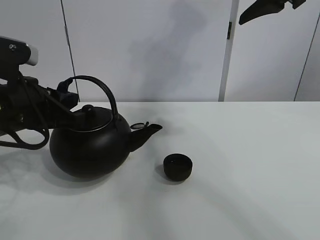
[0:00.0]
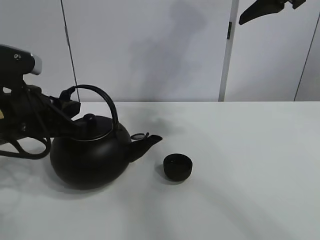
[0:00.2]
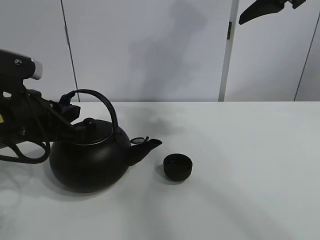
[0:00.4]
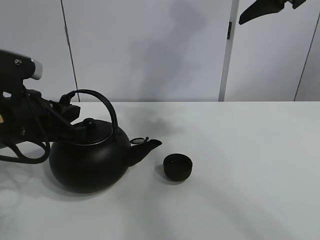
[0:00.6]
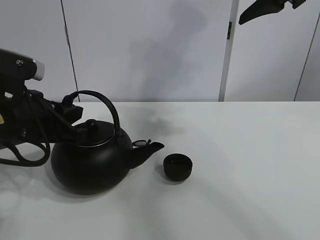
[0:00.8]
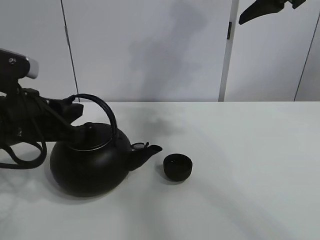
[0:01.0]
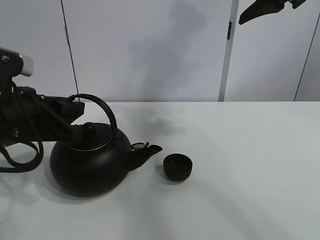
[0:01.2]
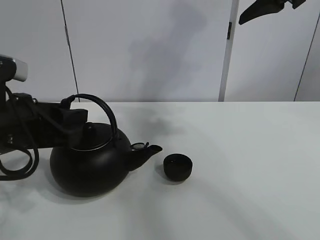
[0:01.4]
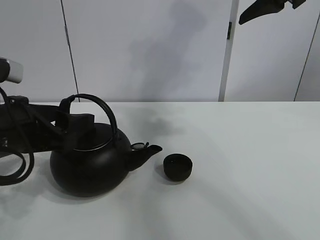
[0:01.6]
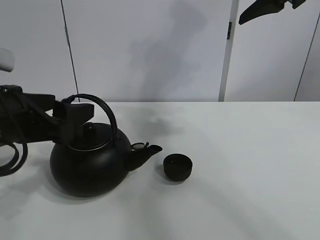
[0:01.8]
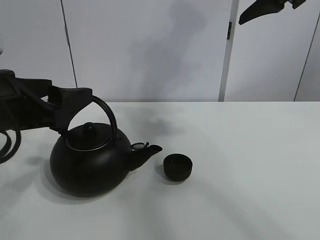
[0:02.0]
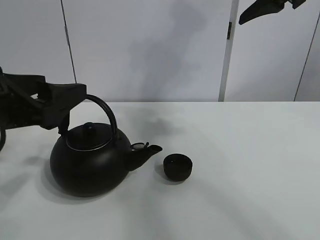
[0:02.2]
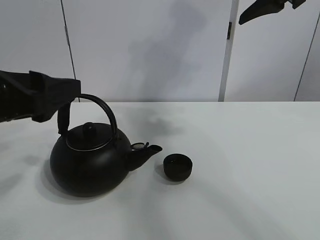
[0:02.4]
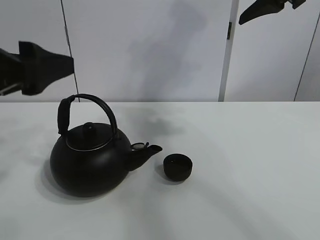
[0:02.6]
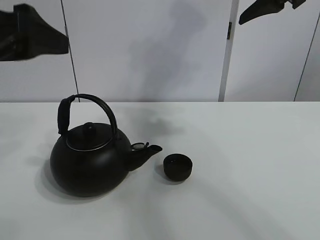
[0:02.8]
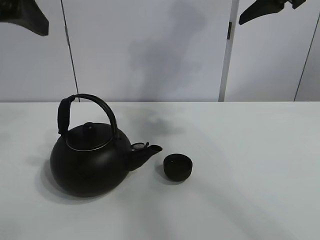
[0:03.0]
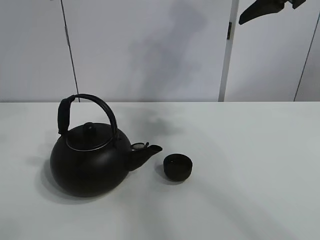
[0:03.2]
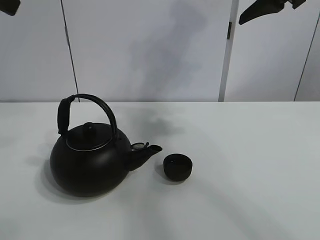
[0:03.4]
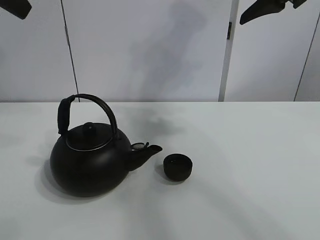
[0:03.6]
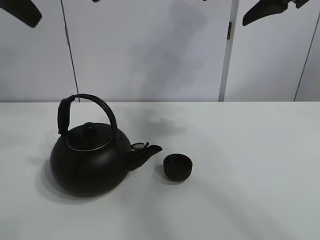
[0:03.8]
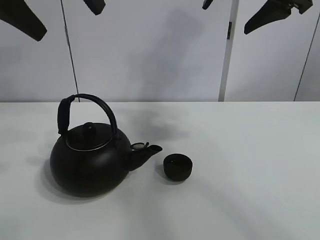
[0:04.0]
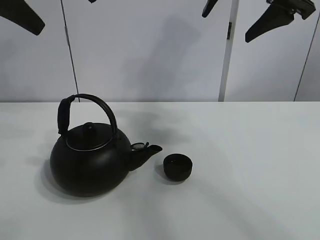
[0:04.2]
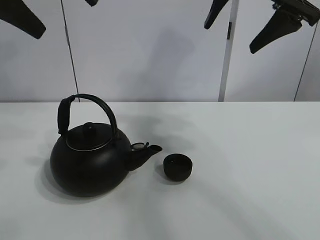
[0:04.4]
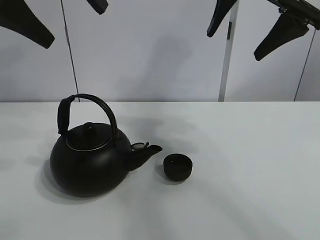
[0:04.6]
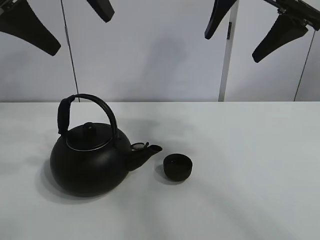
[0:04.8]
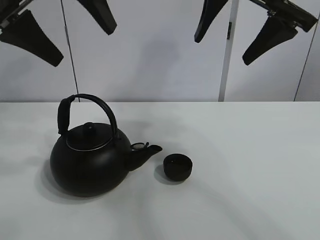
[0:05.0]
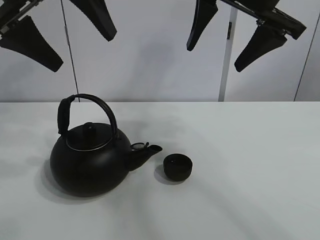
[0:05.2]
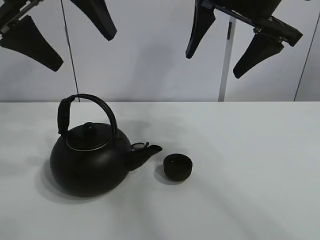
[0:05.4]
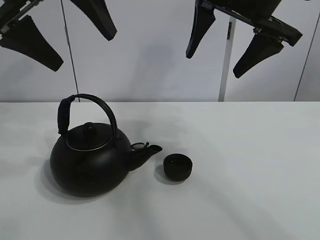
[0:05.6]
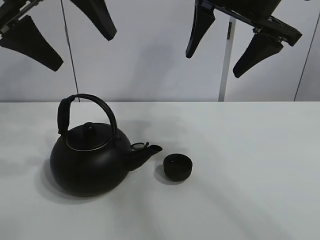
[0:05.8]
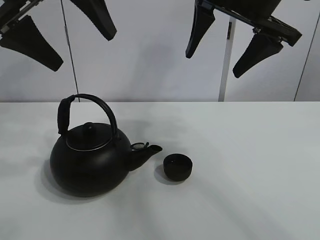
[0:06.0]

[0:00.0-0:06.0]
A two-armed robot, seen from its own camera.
Task of the whole recording: pour tea into the teacup.
0:00.0 to 0:01.6: The left gripper opens.
0:01.6 to 0:03.0: The left gripper is displaced upward by about 20 cm.
0:03.0 to 0:04.4: The left gripper travels forward and upward by approximately 10 cm.
0:04.4 to 0:06.0: There are only small adjustments of the grippers.

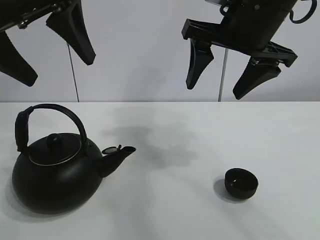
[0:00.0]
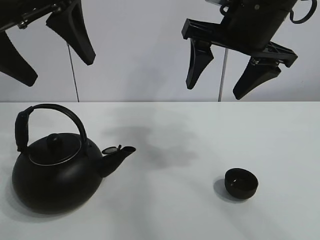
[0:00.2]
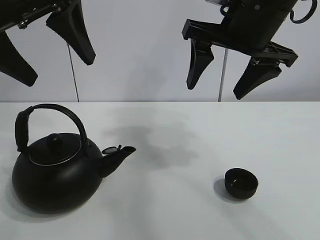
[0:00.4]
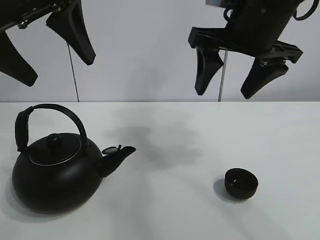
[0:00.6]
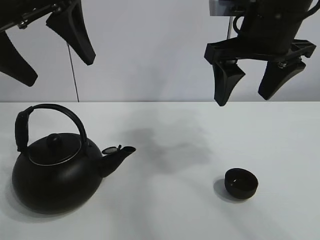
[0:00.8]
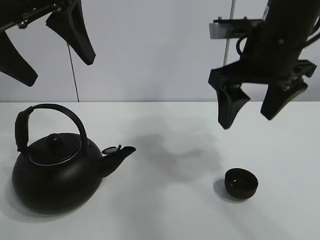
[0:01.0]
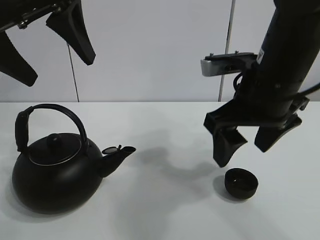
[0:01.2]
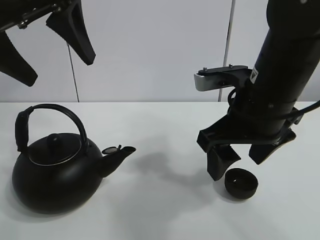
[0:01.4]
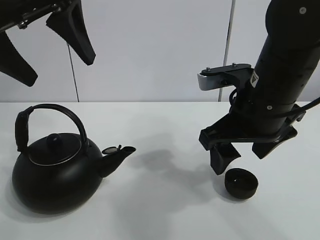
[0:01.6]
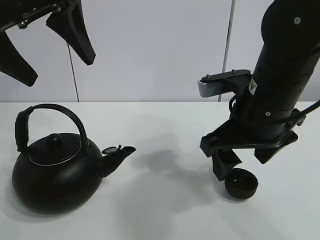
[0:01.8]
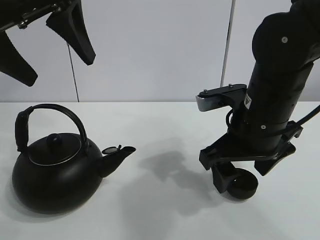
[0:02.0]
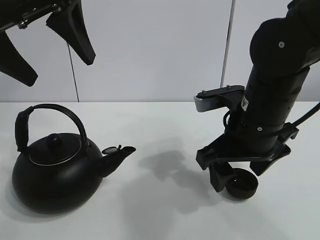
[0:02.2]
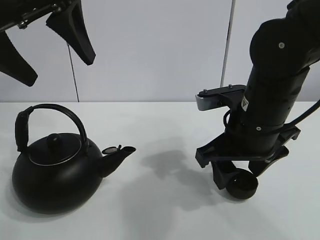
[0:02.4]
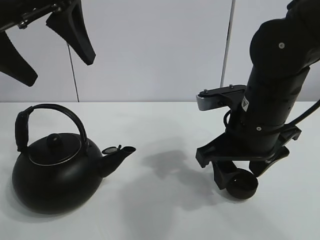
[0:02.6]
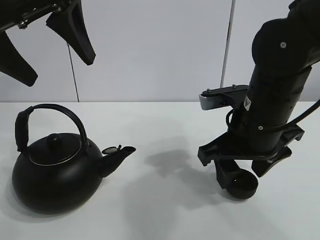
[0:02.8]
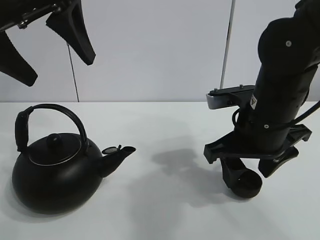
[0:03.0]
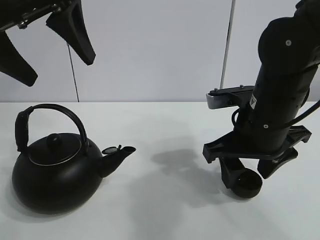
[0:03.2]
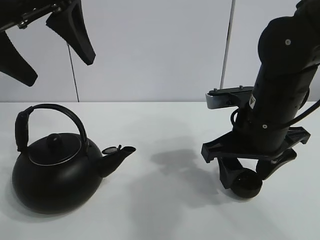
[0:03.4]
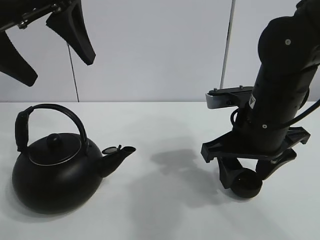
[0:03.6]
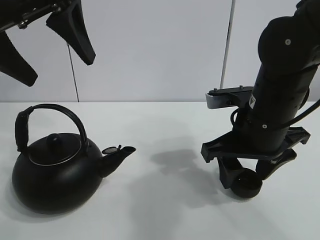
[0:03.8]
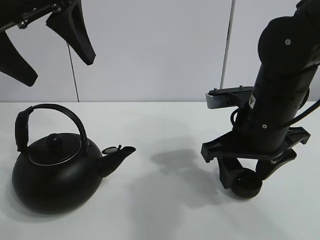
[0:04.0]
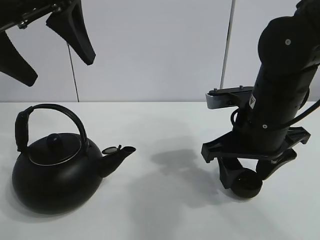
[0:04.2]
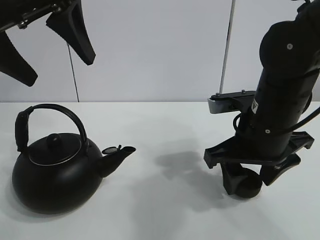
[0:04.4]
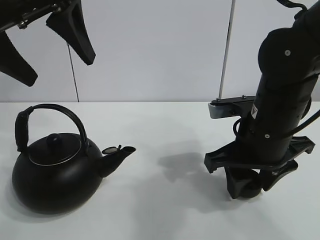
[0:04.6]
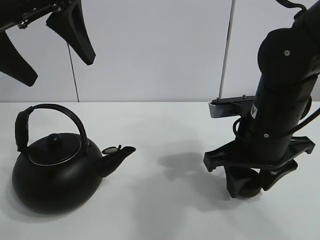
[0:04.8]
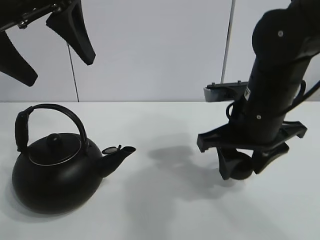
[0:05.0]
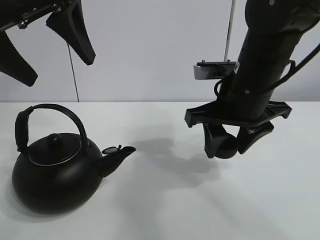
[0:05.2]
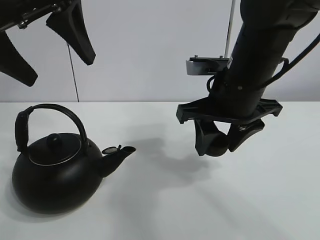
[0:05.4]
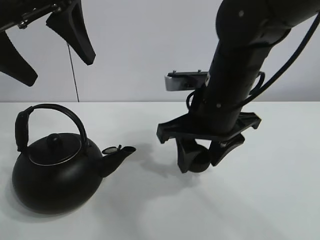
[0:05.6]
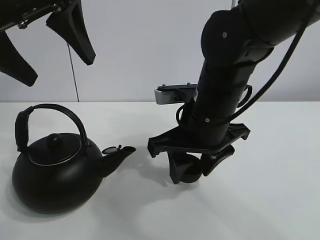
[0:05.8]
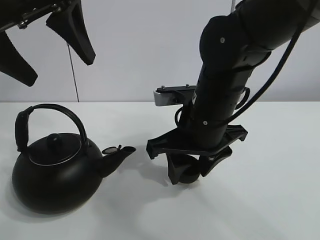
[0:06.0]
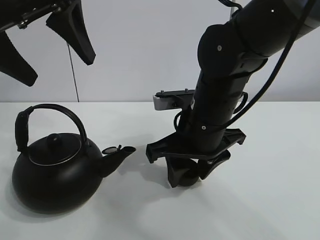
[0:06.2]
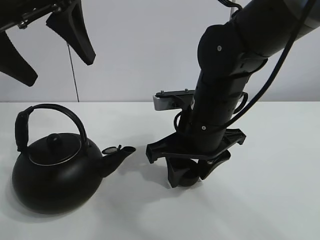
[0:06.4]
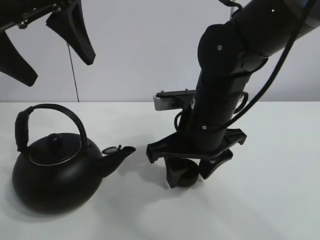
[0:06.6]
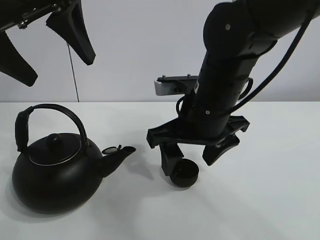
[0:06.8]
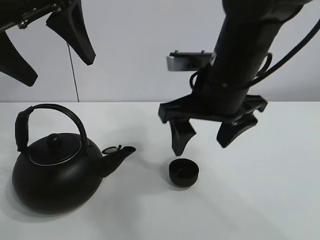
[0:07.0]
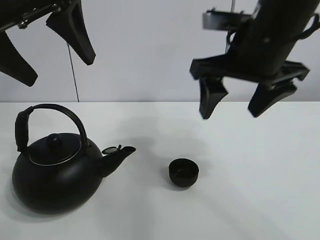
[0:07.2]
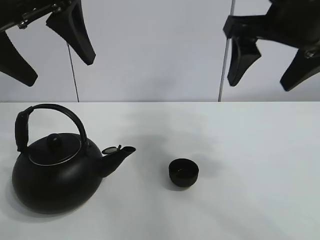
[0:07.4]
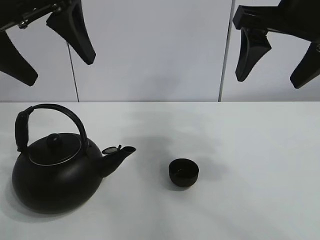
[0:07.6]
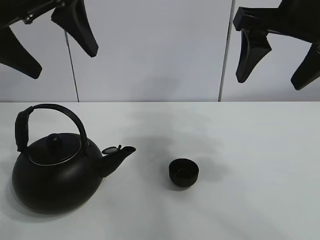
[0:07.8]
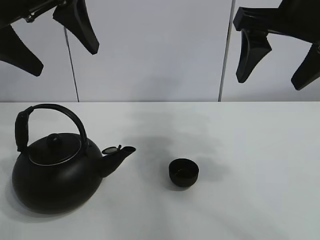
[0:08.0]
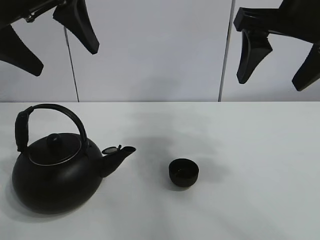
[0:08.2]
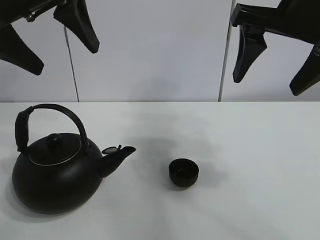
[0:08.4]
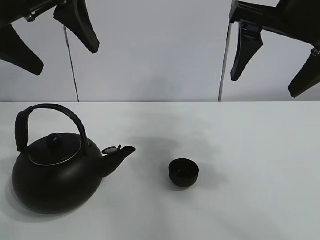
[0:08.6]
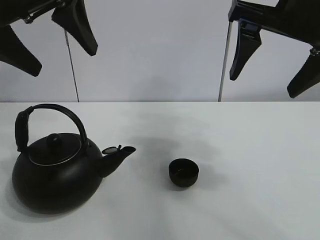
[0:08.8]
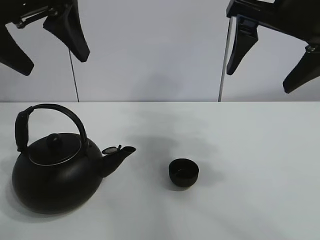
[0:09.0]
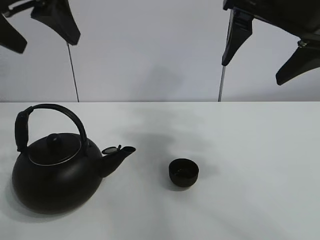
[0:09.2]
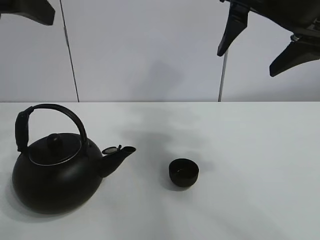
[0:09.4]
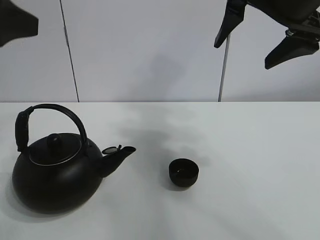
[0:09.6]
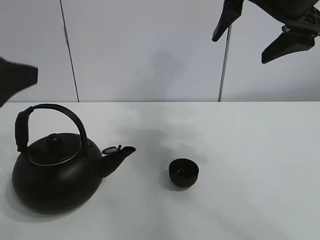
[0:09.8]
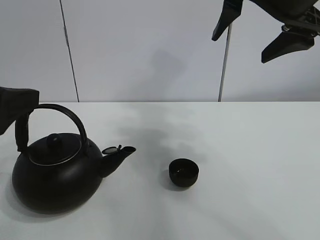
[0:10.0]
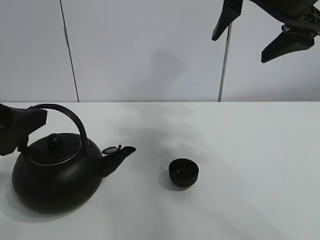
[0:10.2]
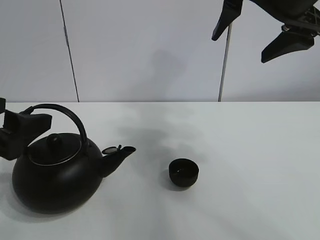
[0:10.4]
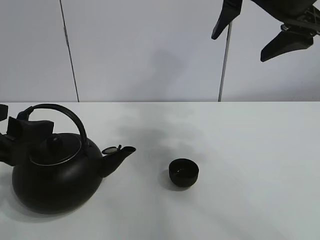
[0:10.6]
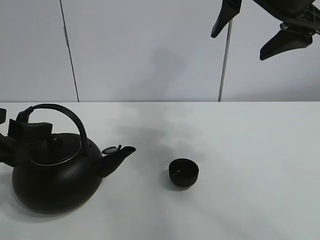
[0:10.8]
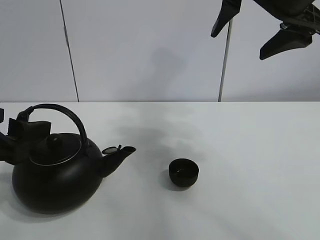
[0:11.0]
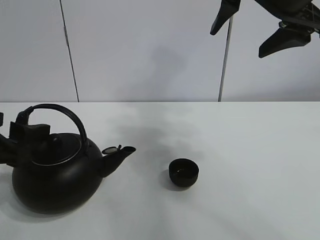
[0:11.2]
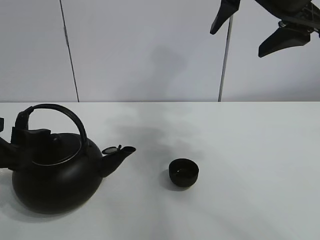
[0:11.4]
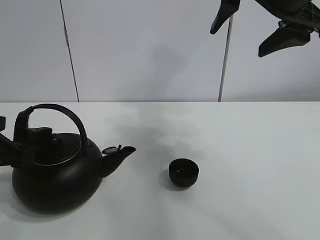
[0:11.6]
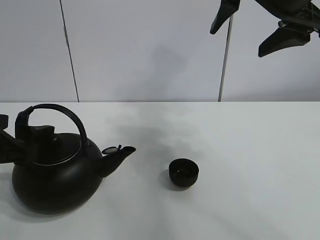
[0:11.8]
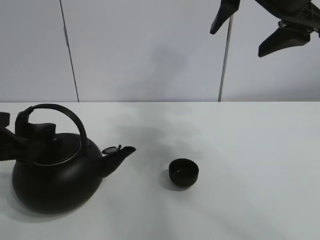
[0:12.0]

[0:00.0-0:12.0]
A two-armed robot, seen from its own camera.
Task of the whole recording: pour tea into the teacup.
Step, 0:00.0 to 0:04.6: Pick up the teacup with the right gripper.
Step, 0:04.8 to 0:06.6: Place the teacup in the center of view with the right gripper.
0:01.6 to 0:03.0: The right gripper closes up.
0:03.0 to 0:04.4: Both grippers stay put.
0:04.4 to 0:06.0: The right gripper heads to the left, covering approximately 10 cm, and closes.
0:06.0 to 0:07.6: The right gripper is displaced upward and to the right by some 20 cm, and opens.
0:07.6 to 0:09.0: The grippers stay close to where they were, moving slightly.
0:09.0 to 0:10.4: The left gripper shifts roughly 15 cm downward and backward.
0:10.4 to 0:12.0: The grippers move only a little.

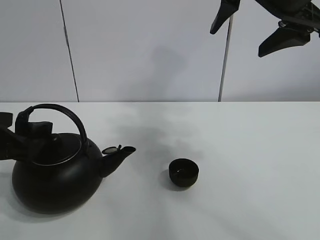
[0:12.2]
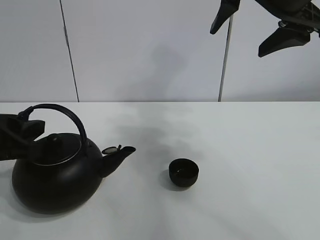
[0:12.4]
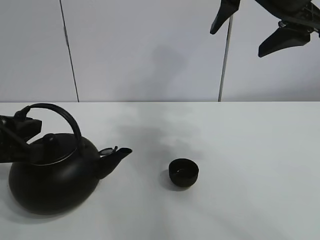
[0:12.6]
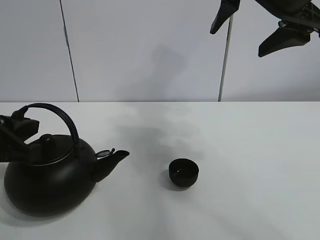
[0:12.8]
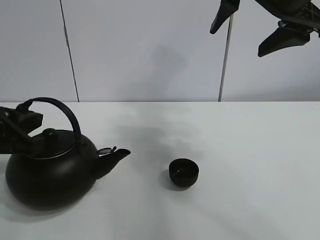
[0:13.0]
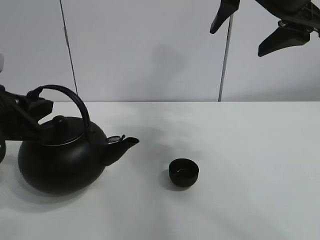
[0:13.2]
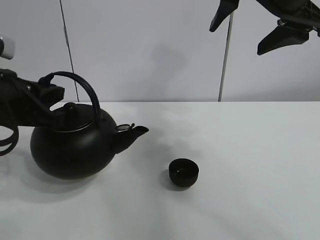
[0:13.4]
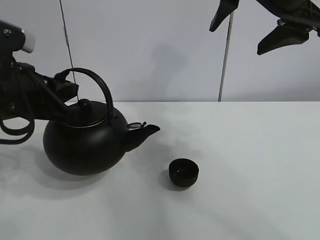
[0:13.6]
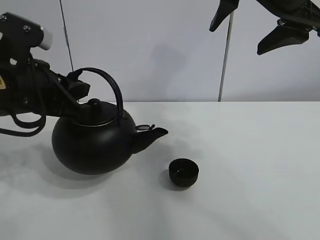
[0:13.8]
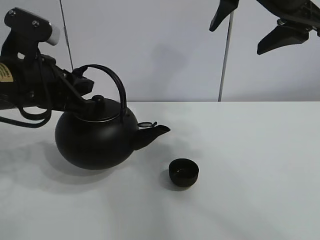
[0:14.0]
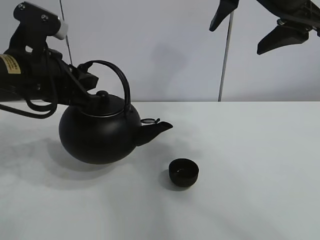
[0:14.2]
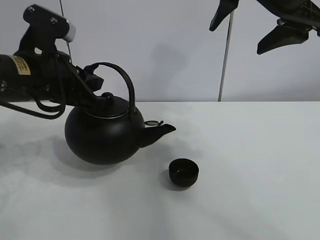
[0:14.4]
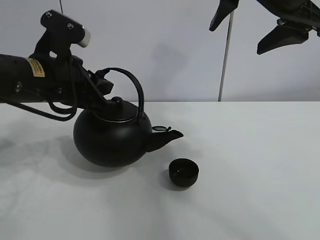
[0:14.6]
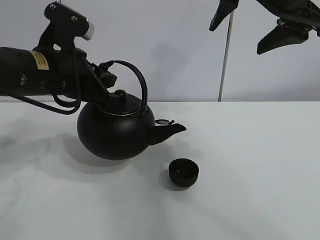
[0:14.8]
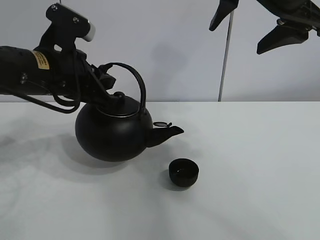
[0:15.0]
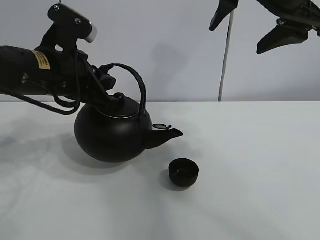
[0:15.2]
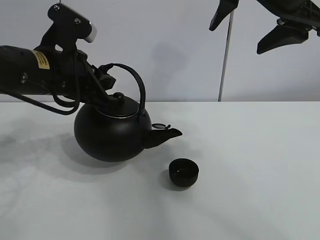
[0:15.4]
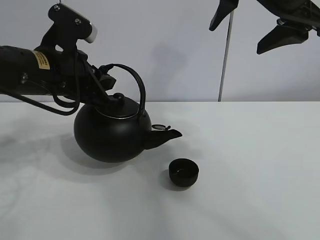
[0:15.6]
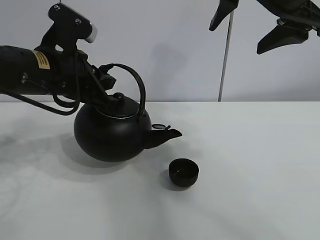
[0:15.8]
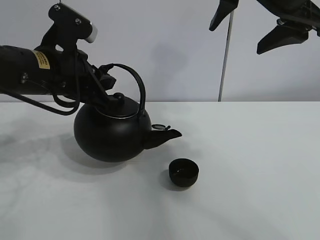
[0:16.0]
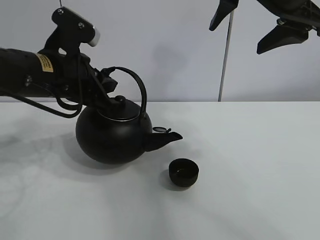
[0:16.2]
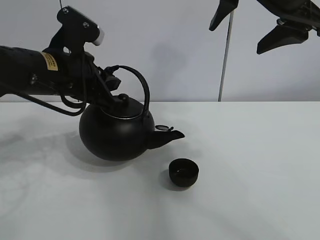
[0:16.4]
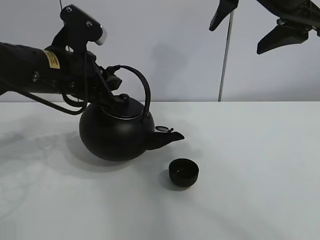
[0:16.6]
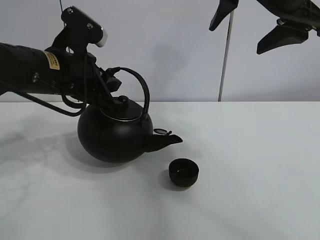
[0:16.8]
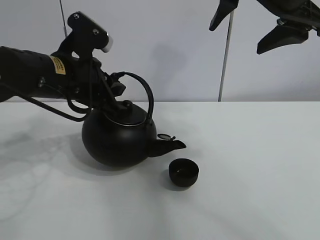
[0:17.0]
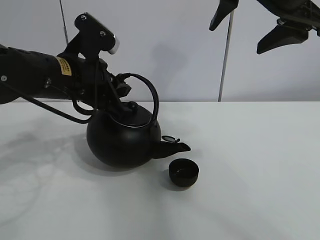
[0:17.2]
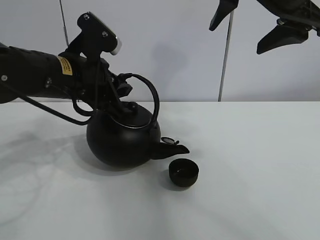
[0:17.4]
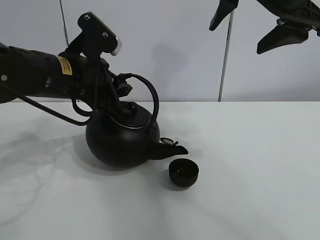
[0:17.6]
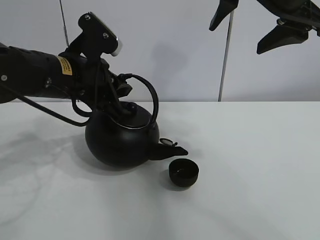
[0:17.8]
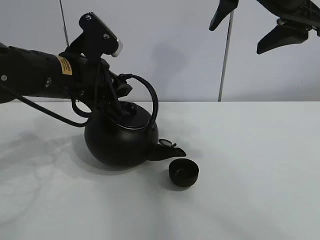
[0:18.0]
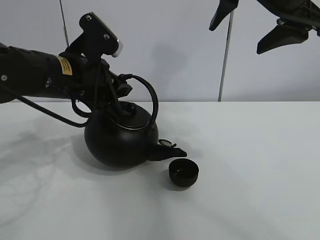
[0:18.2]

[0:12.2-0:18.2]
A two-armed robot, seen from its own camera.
Task of the whole recording: pour tea into the teacup.
0:12.2 to 0:13.8: The left gripper heads forward and to the right, covering roughly 10 cm, and closes its fingers.
0:13.8 to 0:15.2: The left gripper shifts by approximately 5 cm.
0:15.2 to 0:16.6: Neither gripper changes place.
0:16.6 to 0:18.2: The grippers move only a little.
